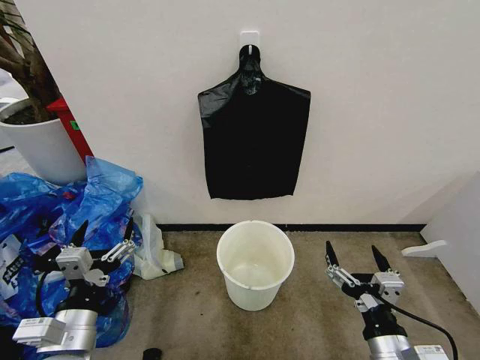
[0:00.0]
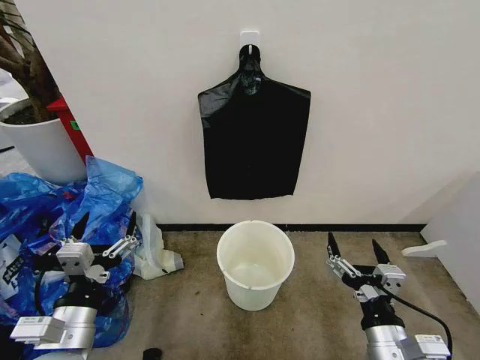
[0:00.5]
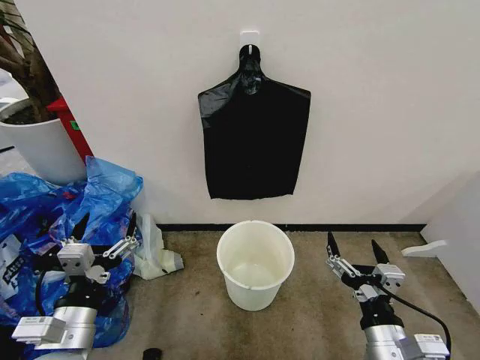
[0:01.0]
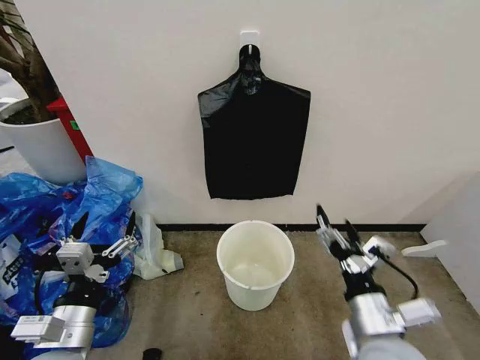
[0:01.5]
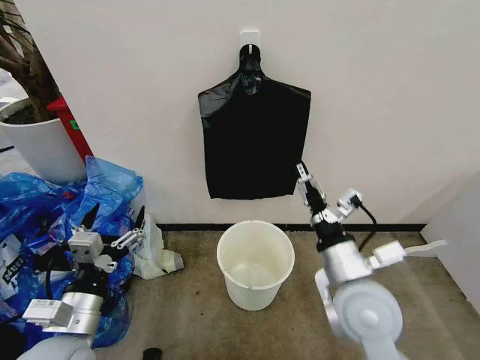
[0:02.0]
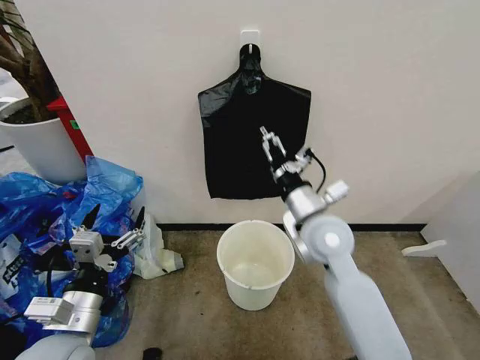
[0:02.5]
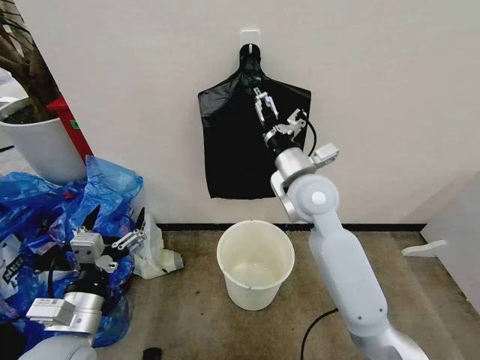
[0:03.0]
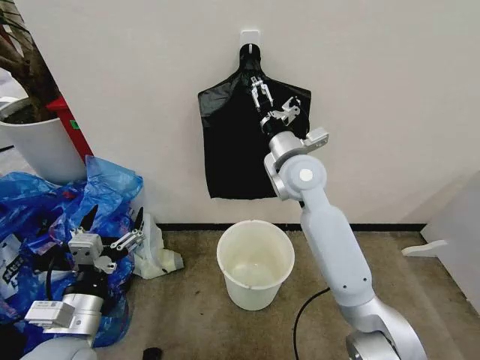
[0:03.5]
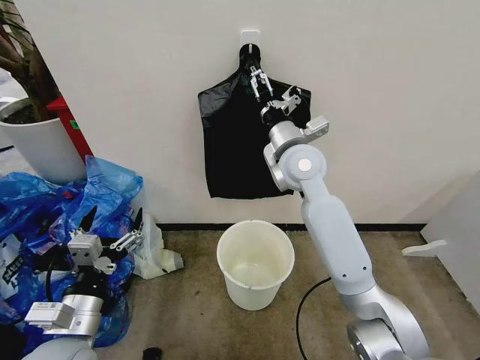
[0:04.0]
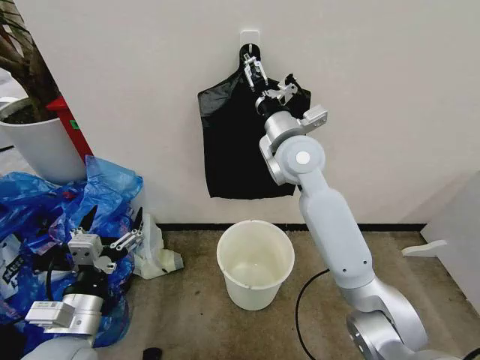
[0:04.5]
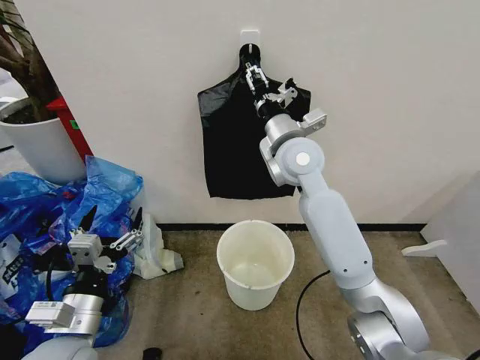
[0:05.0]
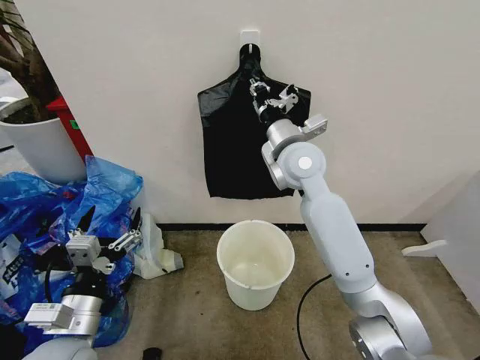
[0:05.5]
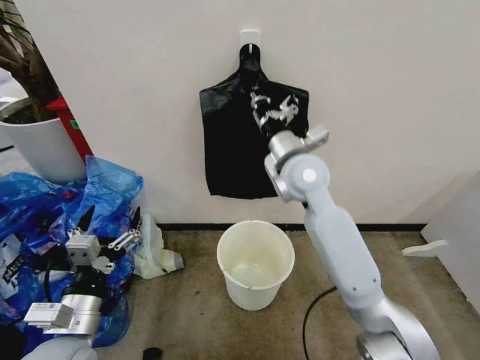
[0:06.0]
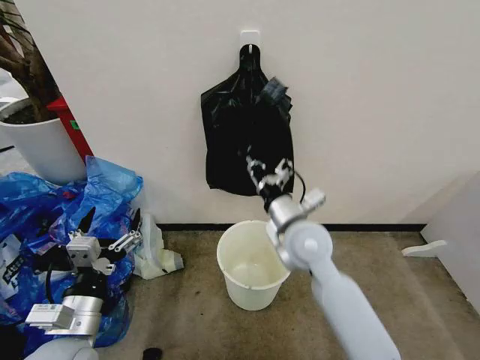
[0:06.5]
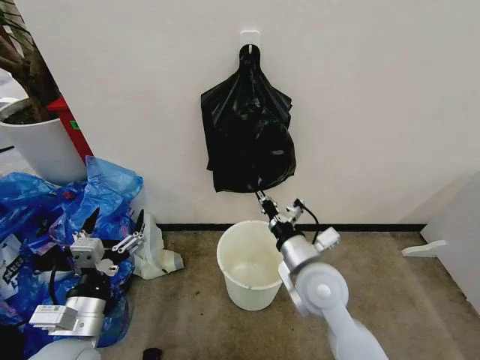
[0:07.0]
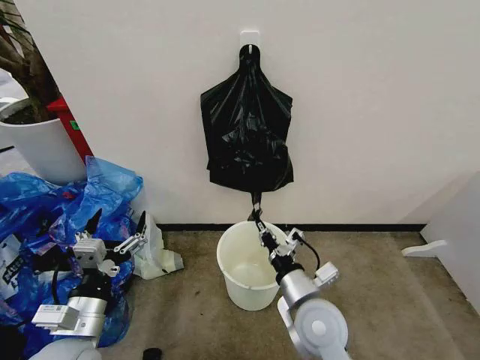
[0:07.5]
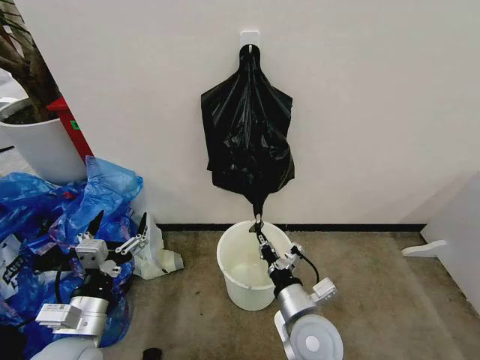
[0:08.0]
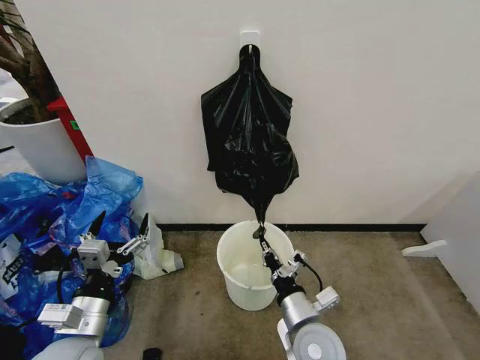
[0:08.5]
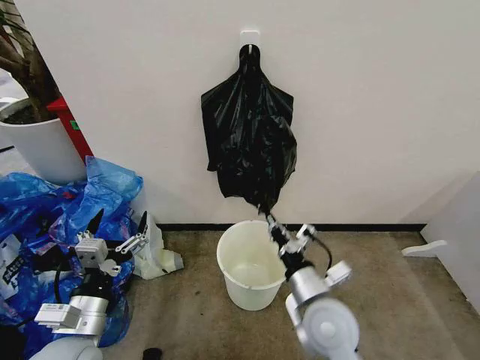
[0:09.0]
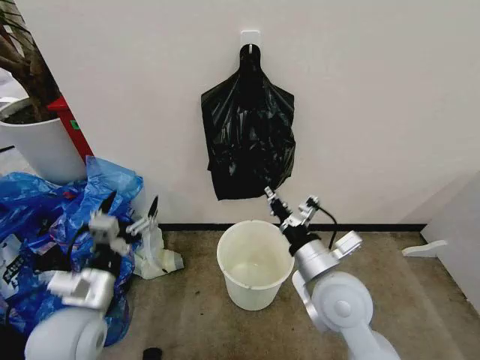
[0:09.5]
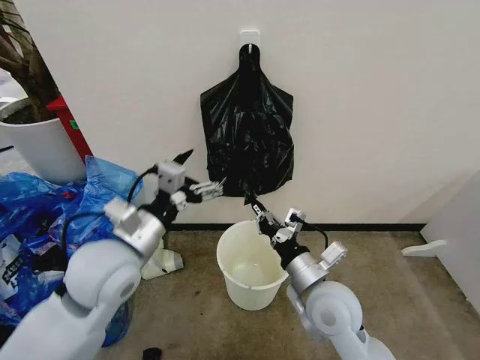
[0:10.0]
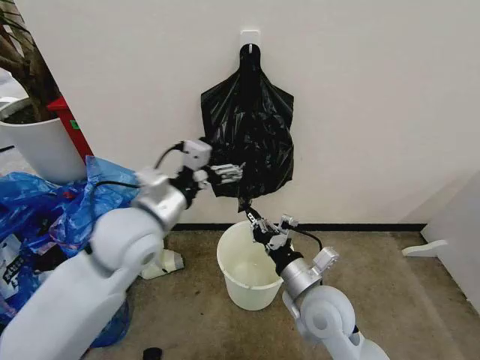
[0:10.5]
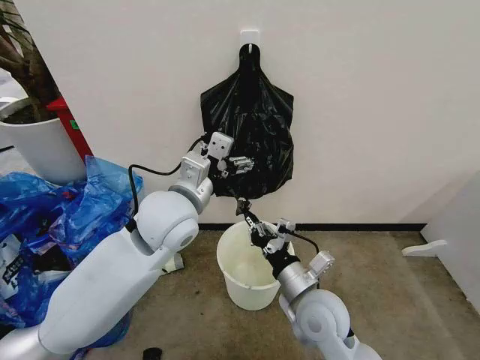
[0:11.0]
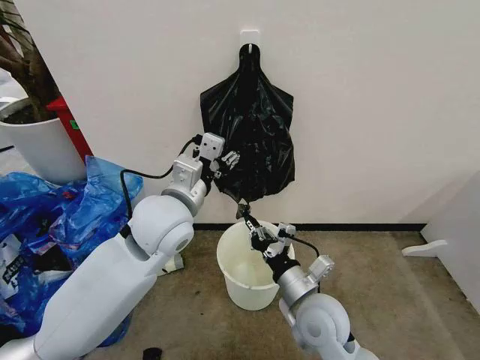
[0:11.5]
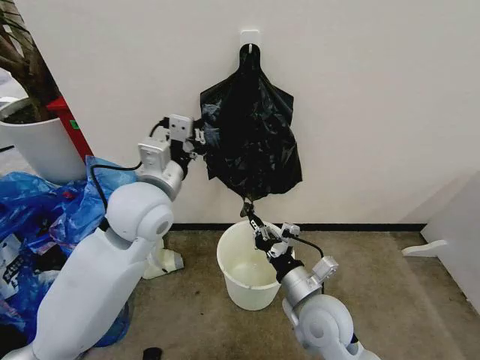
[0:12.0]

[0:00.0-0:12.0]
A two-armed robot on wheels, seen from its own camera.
Task of the whole recording: Place the garbage bag over the trash bin.
0:02.0 to 0:04.0: The right gripper travels forward and upward by about 25 cm.
0:04.0 to 0:06.0: The right gripper closes its fingers.
0:06.0 to 0:08.0: The right gripper heads backward and downward, covering some 30 cm.
0:08.0 to 0:10.0: The right gripper goes approximately 5 cm upward; the left gripper goes approximately 15 cm upward, forward and to the right.
0:10.0 to 0:12.0: The left gripper travels forward and upward by about 10 cm, and closes its fingers.

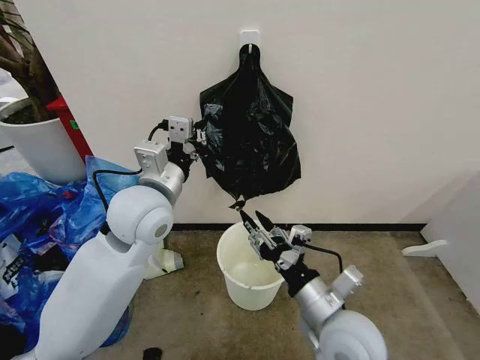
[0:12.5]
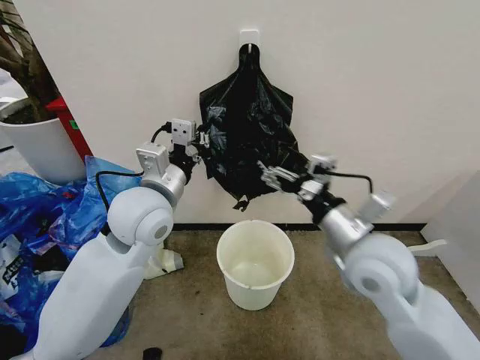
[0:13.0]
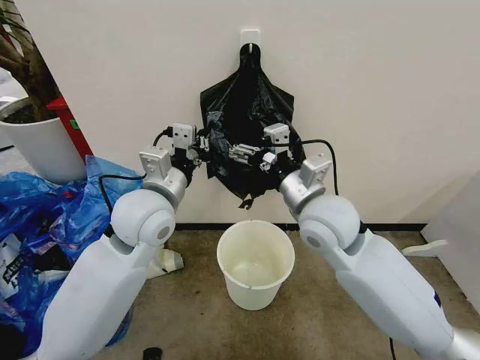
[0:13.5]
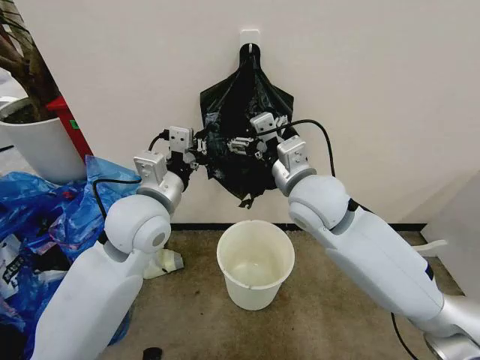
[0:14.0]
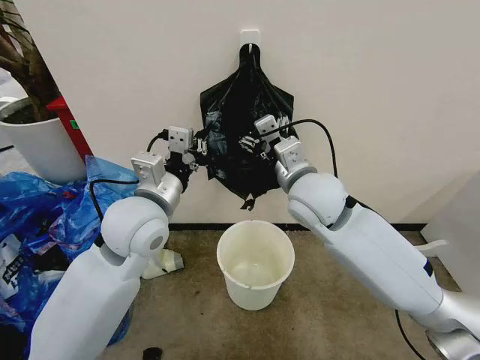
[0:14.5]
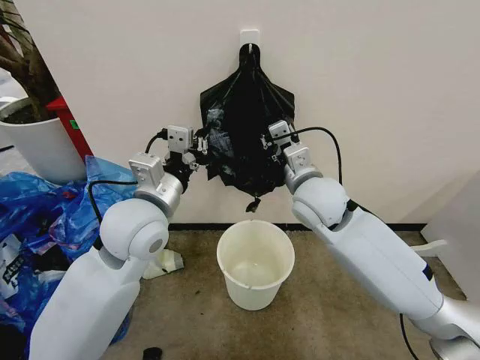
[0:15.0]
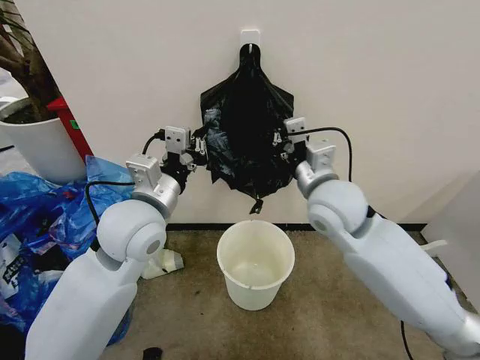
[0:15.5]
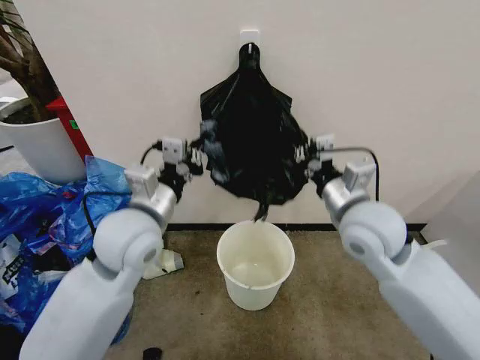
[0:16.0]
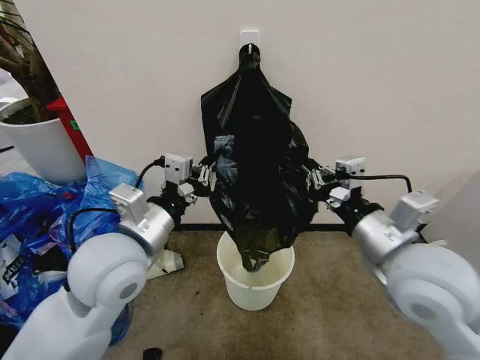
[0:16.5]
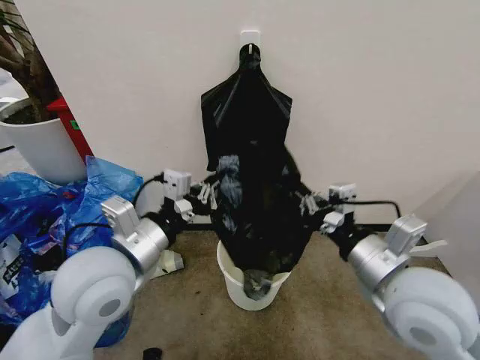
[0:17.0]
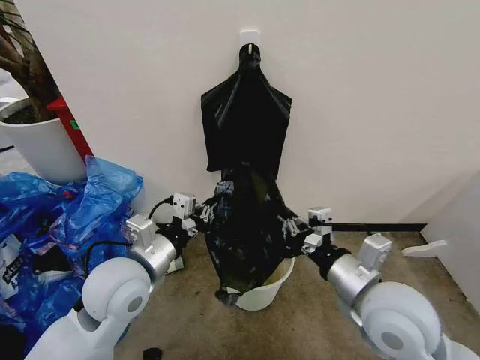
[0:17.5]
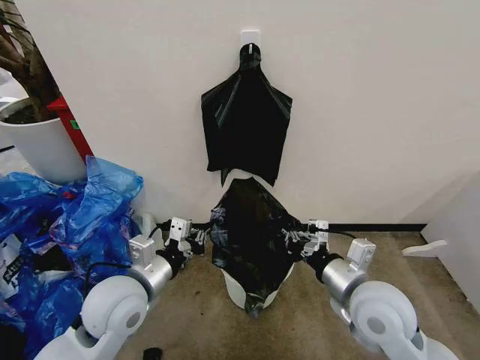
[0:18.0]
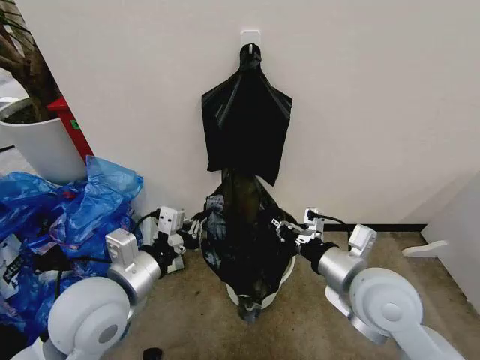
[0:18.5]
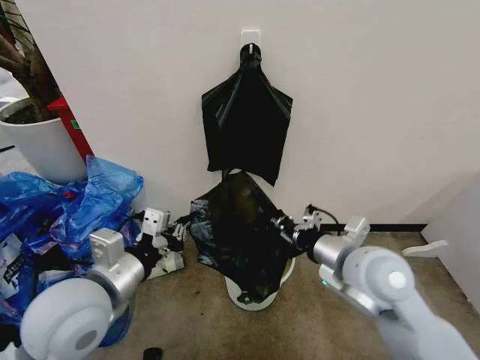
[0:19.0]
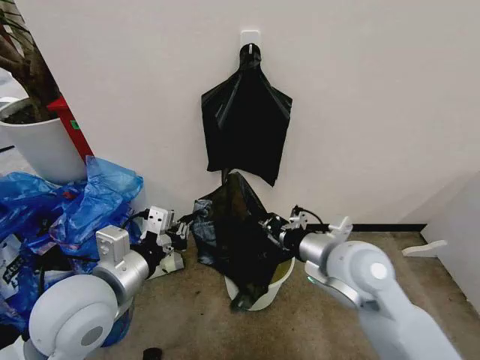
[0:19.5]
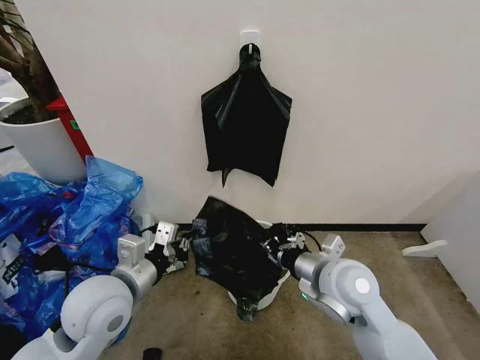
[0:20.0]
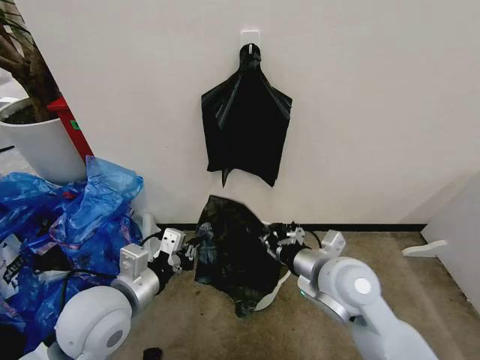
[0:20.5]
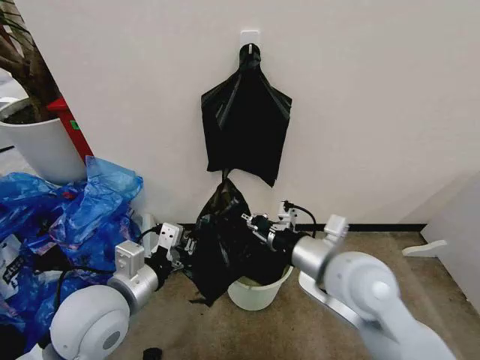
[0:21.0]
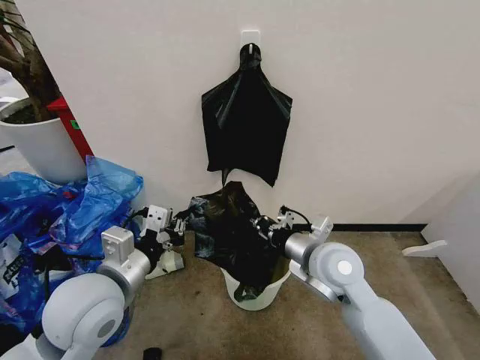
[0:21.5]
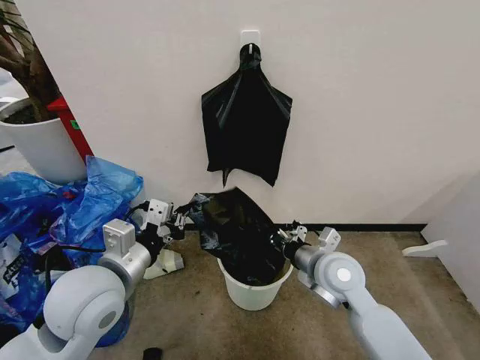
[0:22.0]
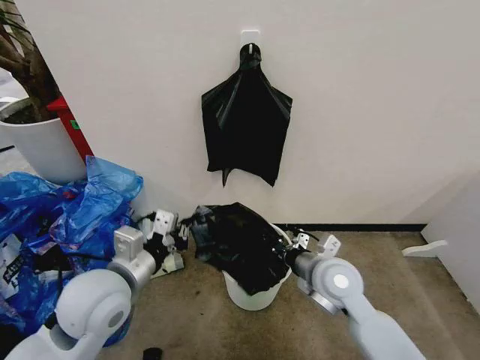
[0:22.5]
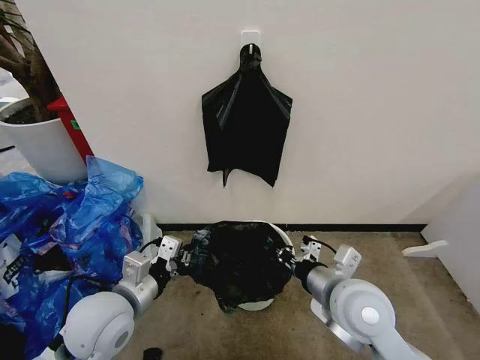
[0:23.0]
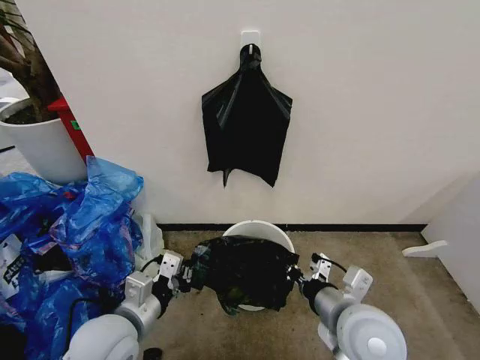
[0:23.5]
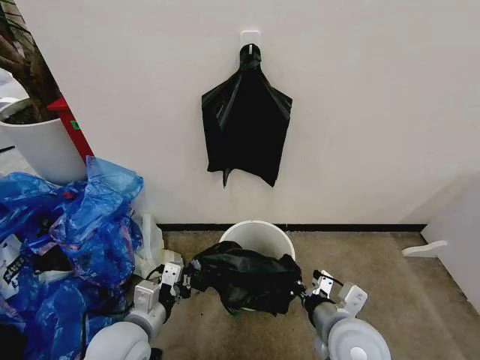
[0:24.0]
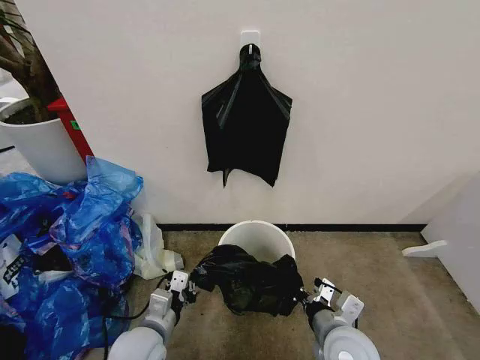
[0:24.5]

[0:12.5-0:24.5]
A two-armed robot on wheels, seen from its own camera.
Task of the whole recording: Place the garbage bag over the trash bin.
0:12.5 to 0:14.5: The right gripper heads forward and upward, covering about 25 cm.
0:14.5 to 0:16.5: The left gripper travels backward by approximately 5 cm, while the right gripper travels backward and to the right by approximately 20 cm, and closes up.
0:16.5 to 0:18.5: The right gripper is displaced downward by roughly 10 cm. The left gripper shifts about 5 cm downward.
0:18.5 to 0:20.5: The right gripper changes place by roughly 5 cm.
0:20.5 to 0:22.5: The right gripper shifts by about 5 cm.
0:22.5 to 0:24.5: The right gripper goes about 15 cm backward and downward; the left gripper shifts roughly 15 cm downward.

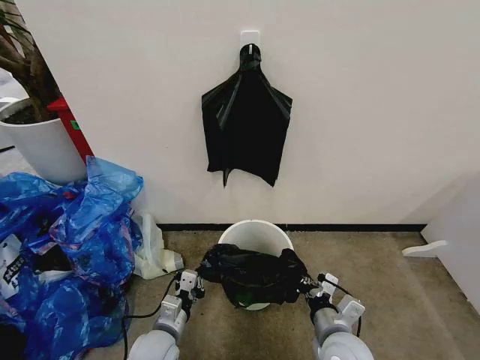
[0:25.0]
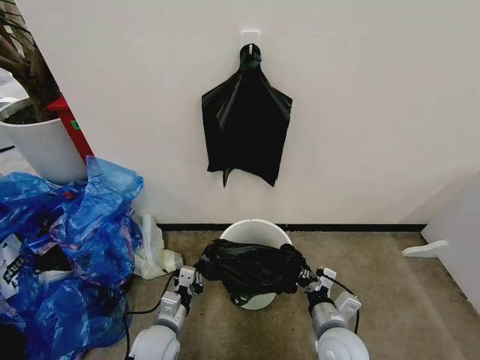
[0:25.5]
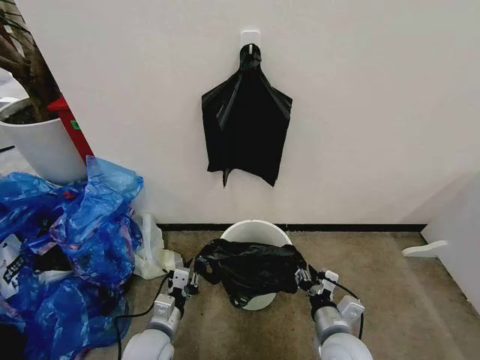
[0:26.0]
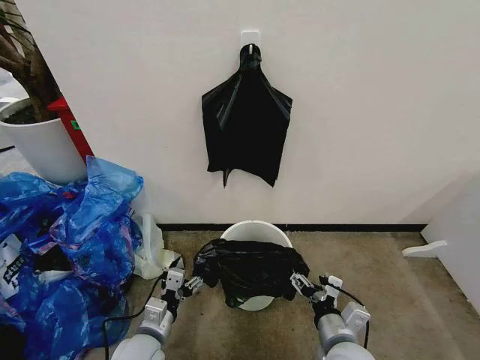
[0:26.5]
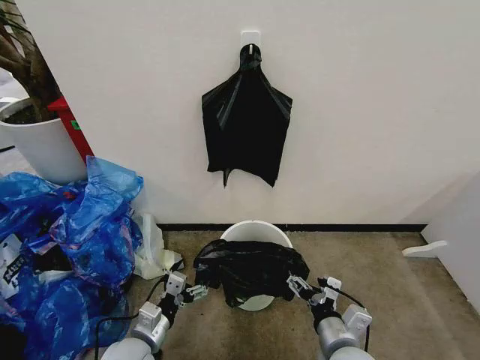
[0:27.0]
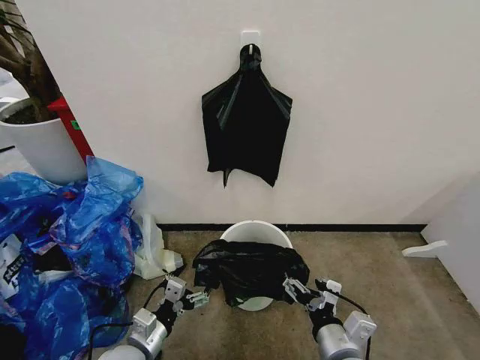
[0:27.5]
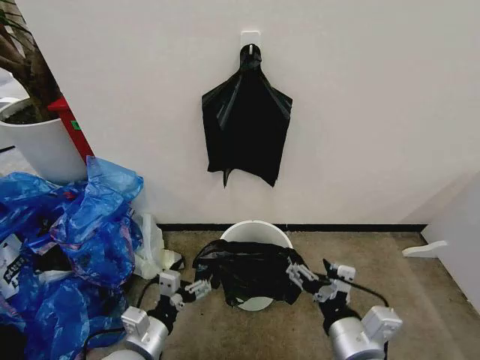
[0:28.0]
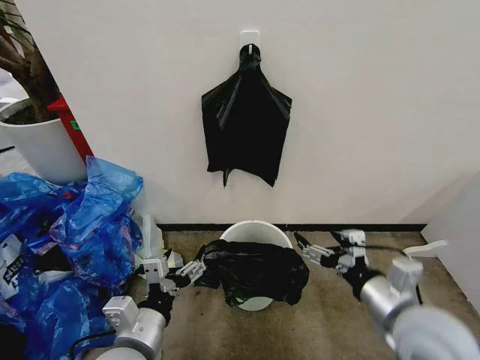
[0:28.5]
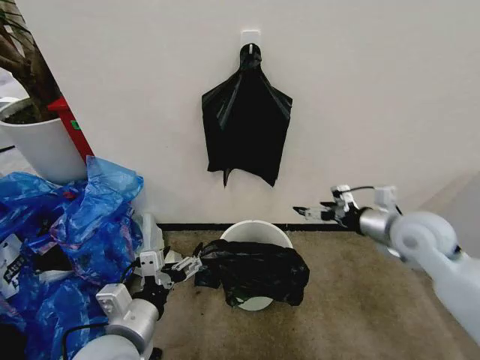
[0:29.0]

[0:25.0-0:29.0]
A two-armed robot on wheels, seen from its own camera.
Task of the whole recording: Place the garbage bag over the trash bin.
0:25.0 to 0:27.0: The right gripper opens, while the left gripper changes place by some 5 cm, and opens its fingers.
0:27.0 to 0:29.0: The left gripper heads upward, covering approximately 15 cm. The right gripper moves forward, upward and to the right, approximately 30 cm.
